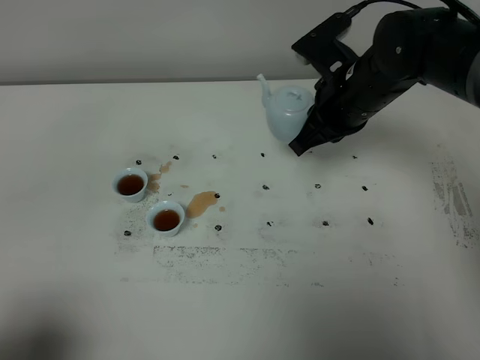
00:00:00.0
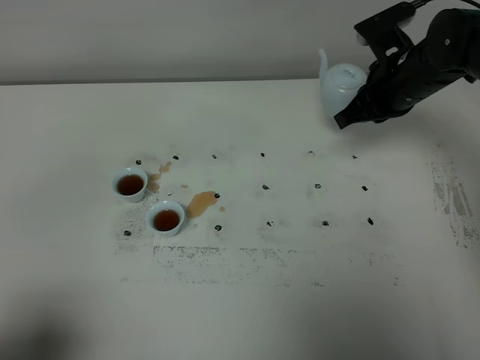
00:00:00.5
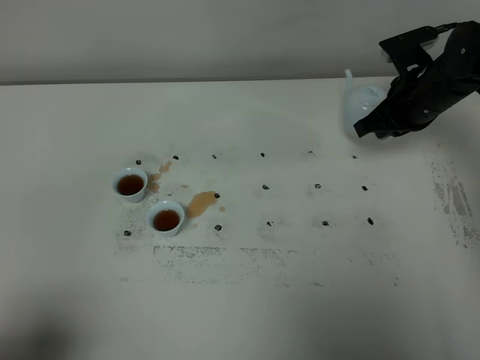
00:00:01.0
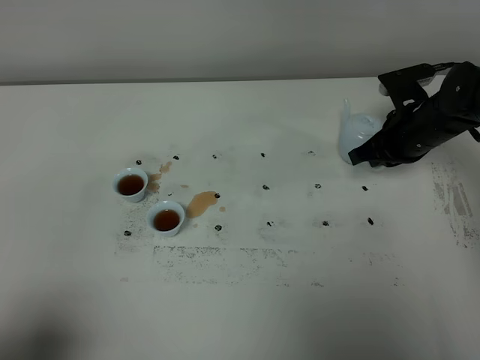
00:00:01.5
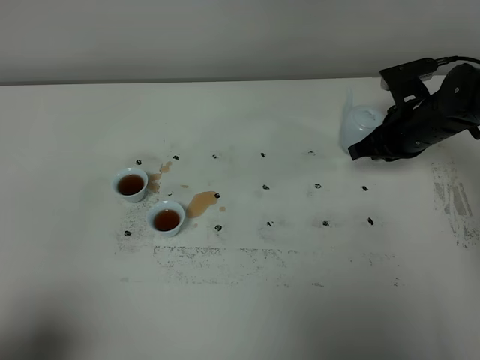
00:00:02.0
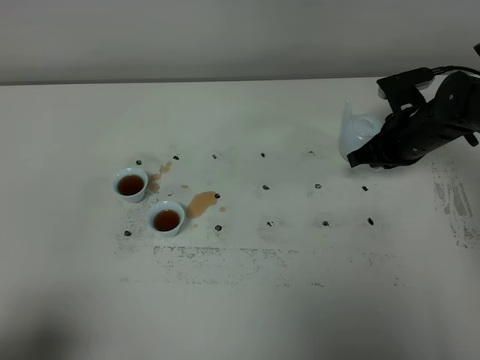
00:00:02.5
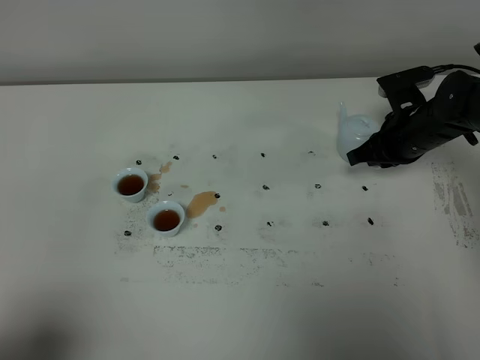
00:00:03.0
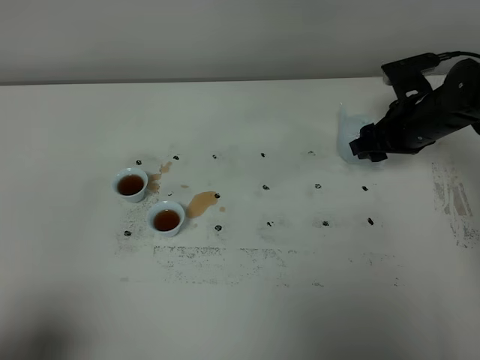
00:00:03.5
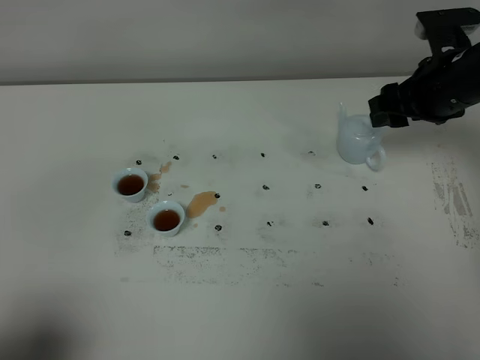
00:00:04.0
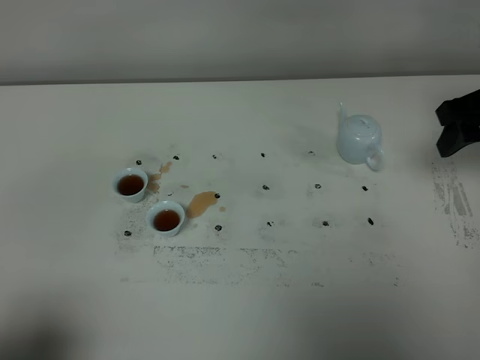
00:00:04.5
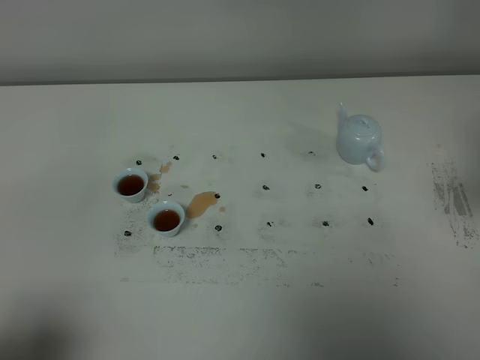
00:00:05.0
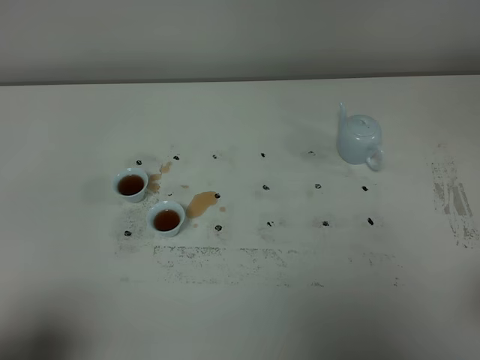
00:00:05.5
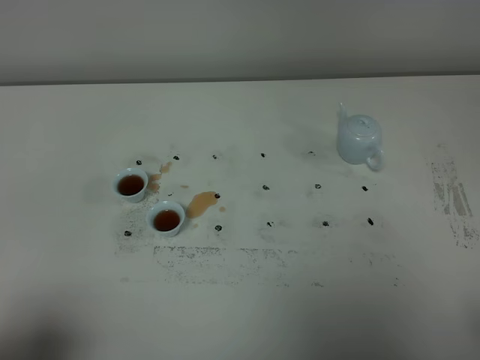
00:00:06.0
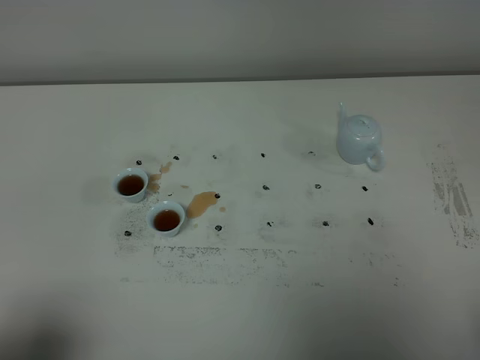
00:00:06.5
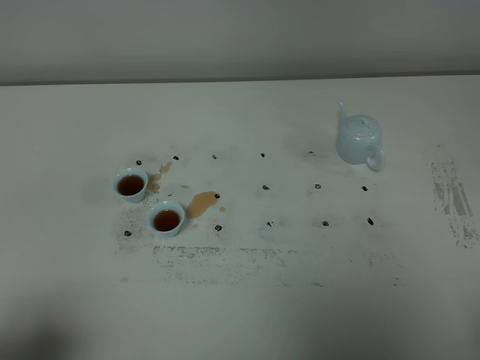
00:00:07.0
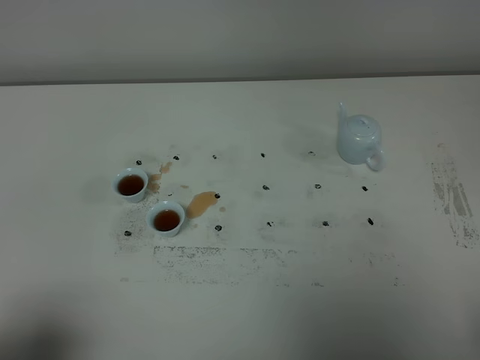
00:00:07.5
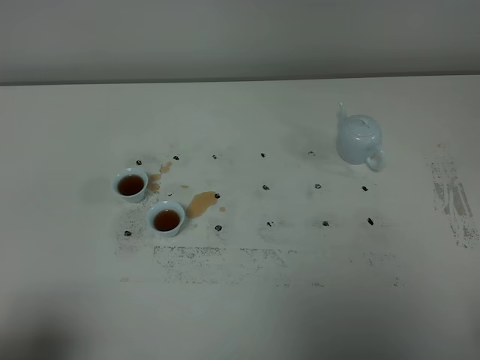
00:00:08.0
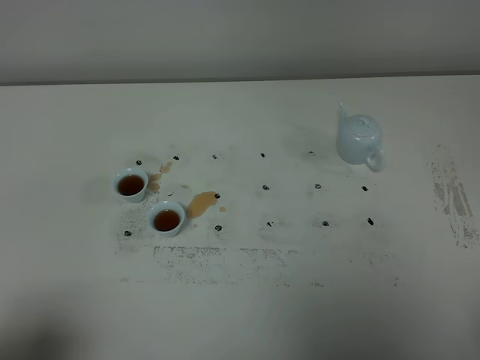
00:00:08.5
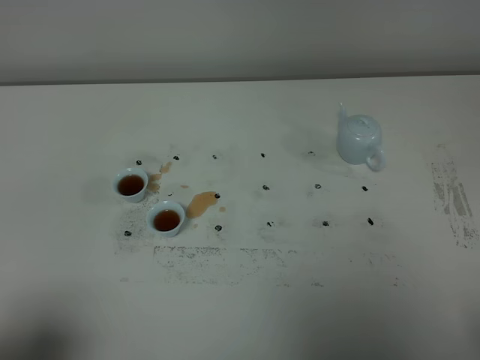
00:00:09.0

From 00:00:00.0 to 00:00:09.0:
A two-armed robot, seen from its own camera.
Task of the whole recording: grasp the blue porcelain teapot and pour the tea into the two blue porcelain teacups one by one, put the blue porcelain teapot back in its original place.
From 00:00:00.0 to 00:00:02.0: The right gripper travels to the right and downward by about 15 cm.
From 00:00:02.0 to 00:00:04.5: The right gripper is displaced upward and backward by approximately 15 cm, and opens.
From 00:00:04.5 to 00:00:07.0: The right gripper travels backward by approximately 35 cm.
From 00:00:07.0 to 00:00:09.0: The two grippers keep their place.

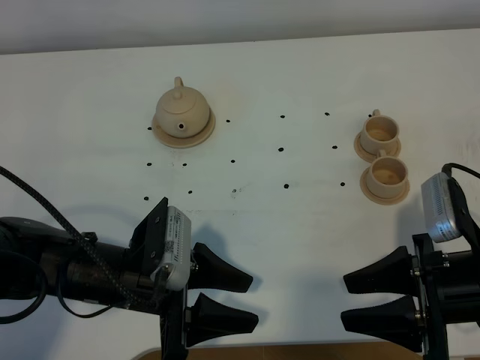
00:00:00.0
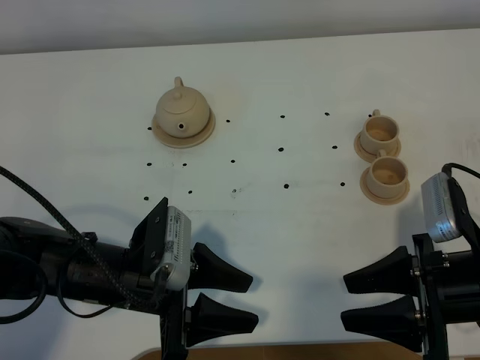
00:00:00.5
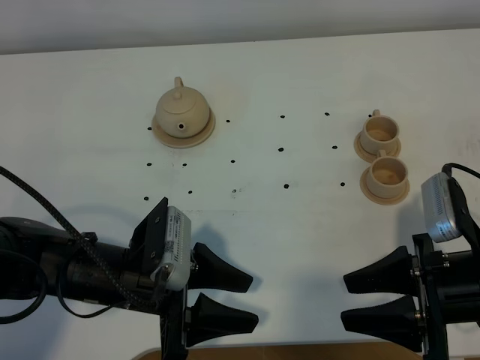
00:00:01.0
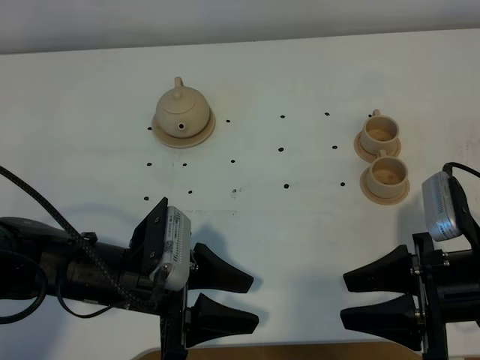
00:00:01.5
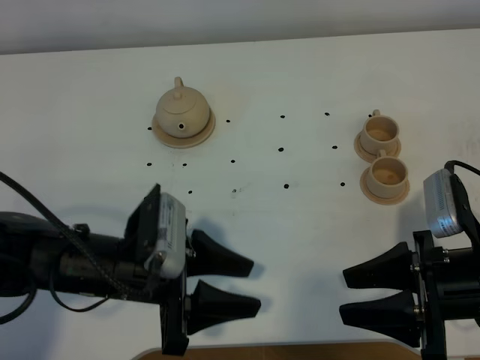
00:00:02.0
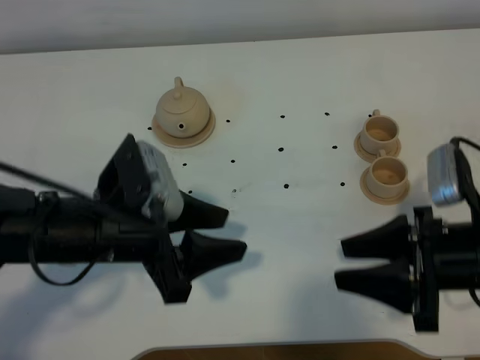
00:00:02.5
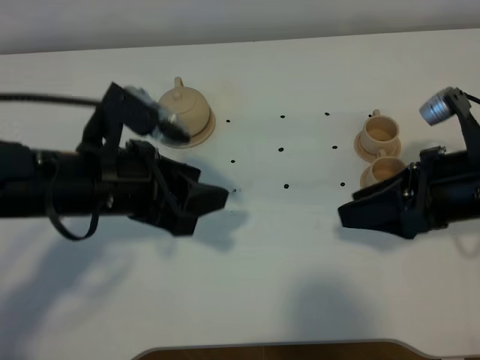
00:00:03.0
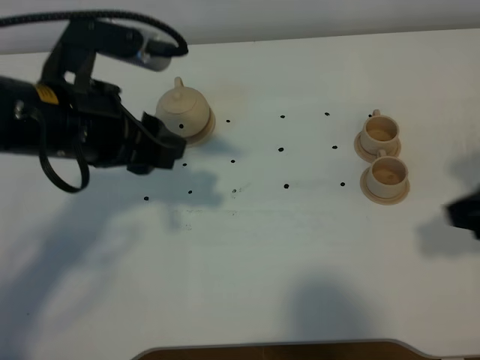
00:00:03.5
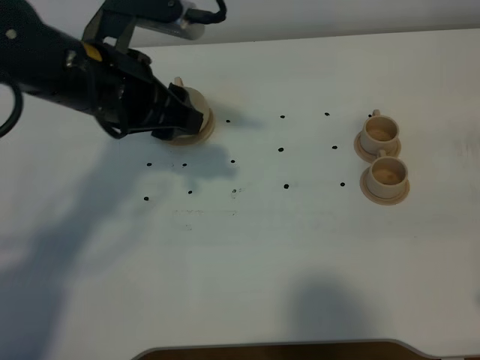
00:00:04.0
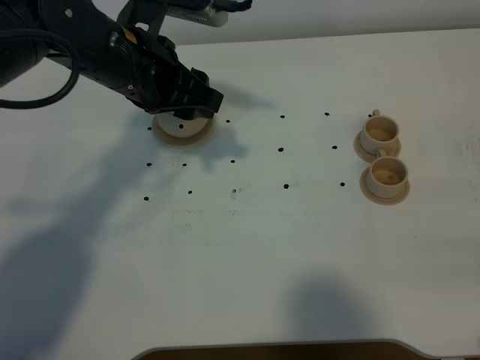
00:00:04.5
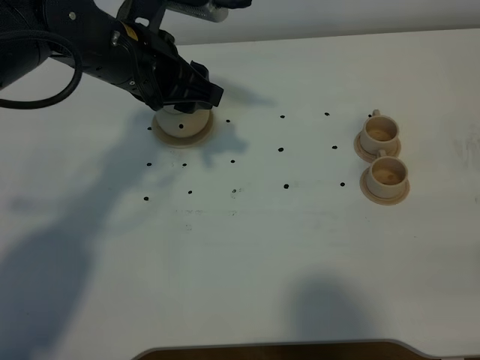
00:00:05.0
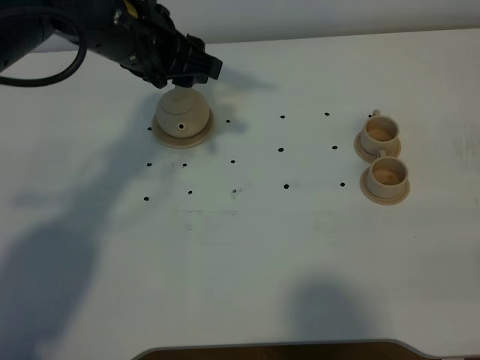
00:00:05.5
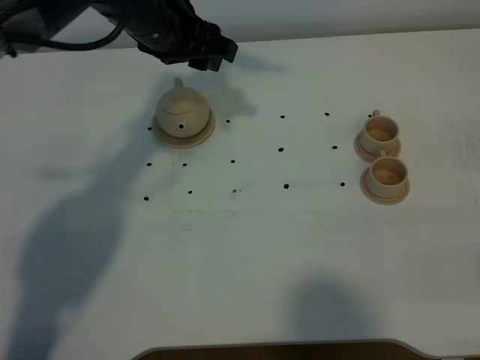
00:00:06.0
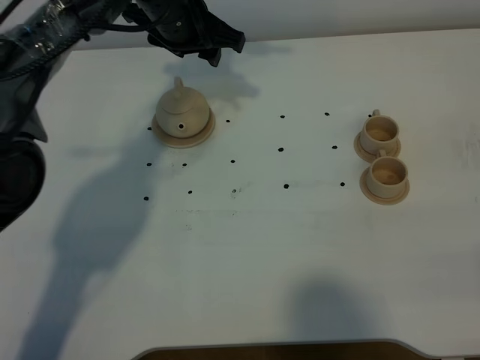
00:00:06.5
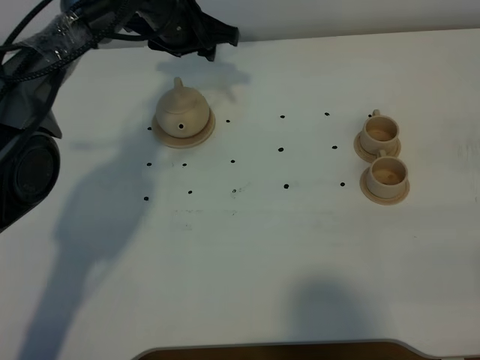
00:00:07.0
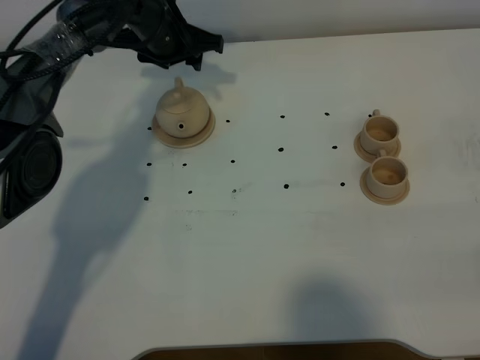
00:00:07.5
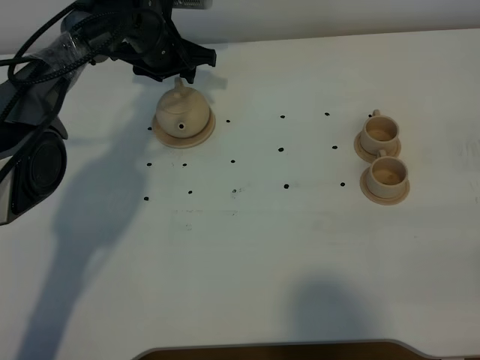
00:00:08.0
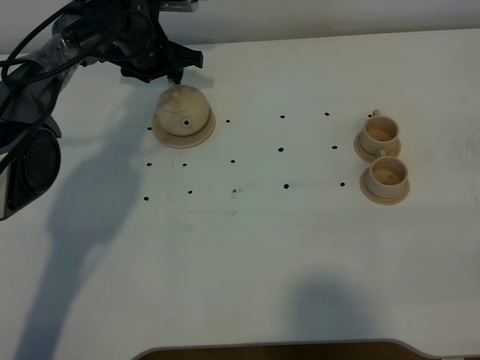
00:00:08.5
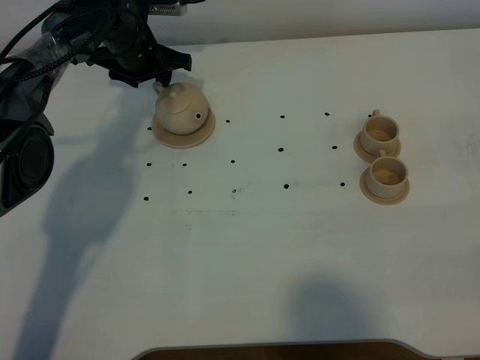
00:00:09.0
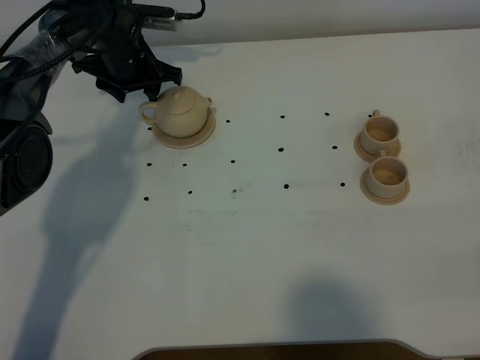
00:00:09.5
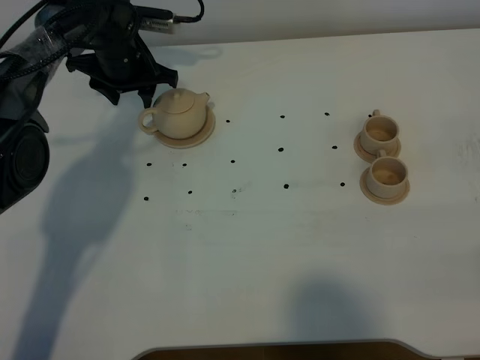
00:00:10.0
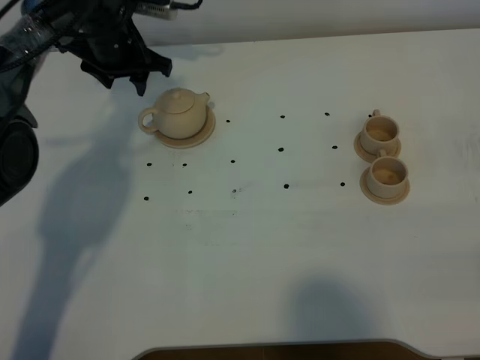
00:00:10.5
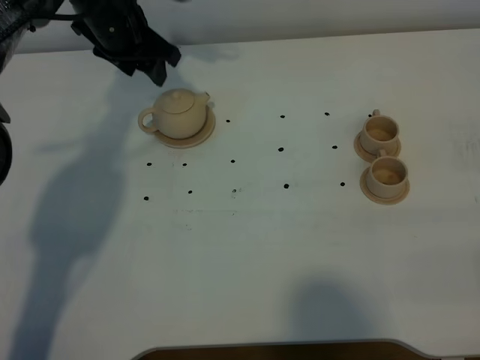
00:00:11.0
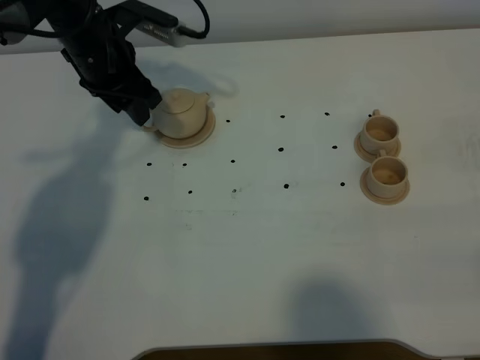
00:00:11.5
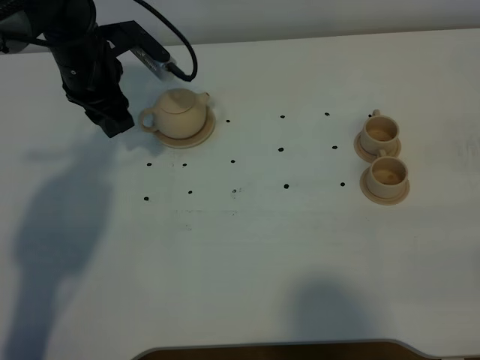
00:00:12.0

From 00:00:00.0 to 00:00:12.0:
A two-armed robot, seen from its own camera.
Task of the whole recording: grasp the brown teapot and pour the tea into the two brown teacups one by one, put the brown teapot back in its original place.
From 00:00:00.0 to 00:00:02.0: The grippers stay close to where they were, moving slightly.
From 00:00:02.0 to 00:00:04.0: The left gripper heads forward and upward, covering about 20 cm. The right gripper shifts about 20 cm upward, to the right and backward.
From 00:00:04.0 to 00:00:06.0: The left gripper moves forward, some 10 cm, while the right gripper moves backward and downward, roughly 10 cm.
From 00:00:06.0 to 00:00:08.0: The left gripper is displaced downward and forward by some 15 cm.
From 00:00:08.0 to 00:00:10.0: The left gripper ends up about 5 cm from where it was.
From 00:00:10.0 to 00:00:12.0: The left gripper heads backward, covering some 10 cm.

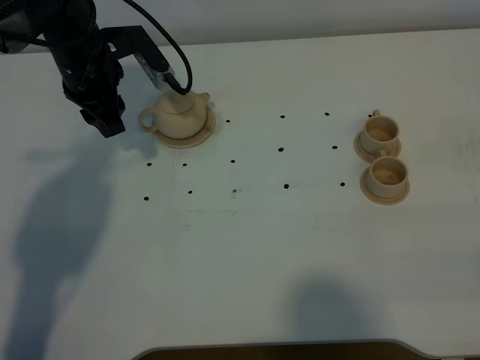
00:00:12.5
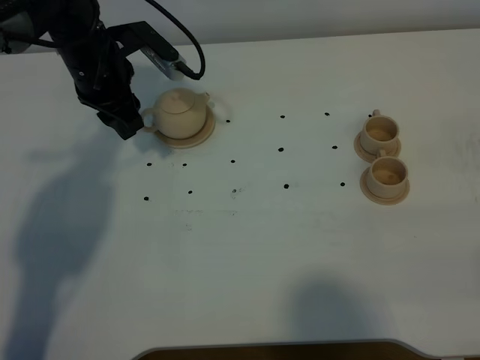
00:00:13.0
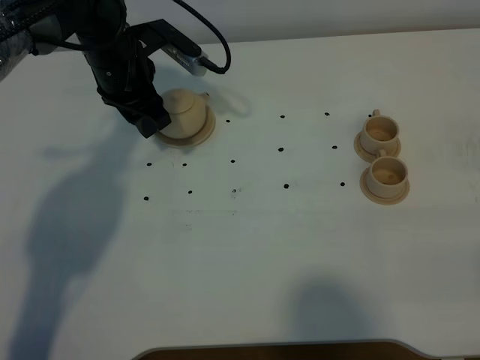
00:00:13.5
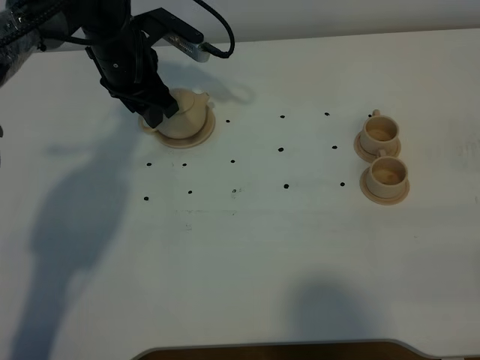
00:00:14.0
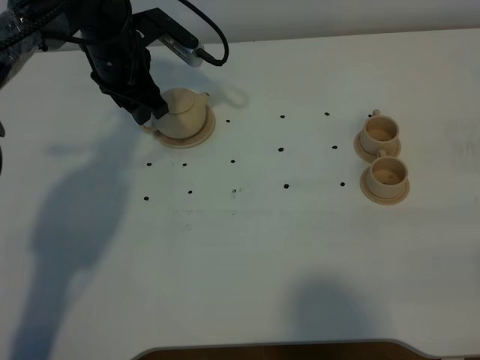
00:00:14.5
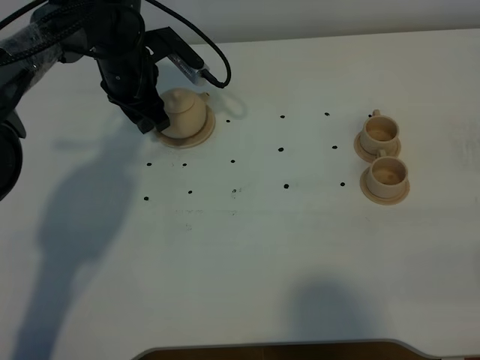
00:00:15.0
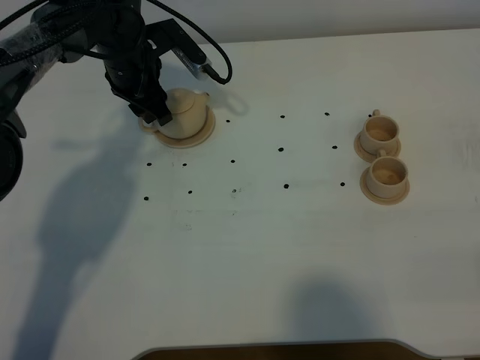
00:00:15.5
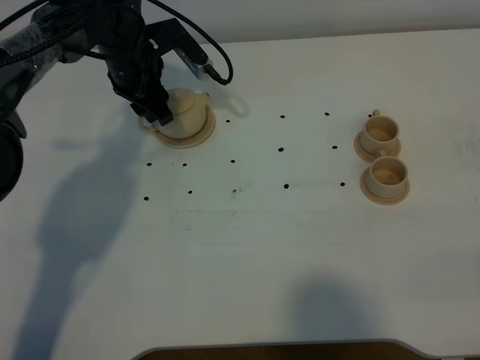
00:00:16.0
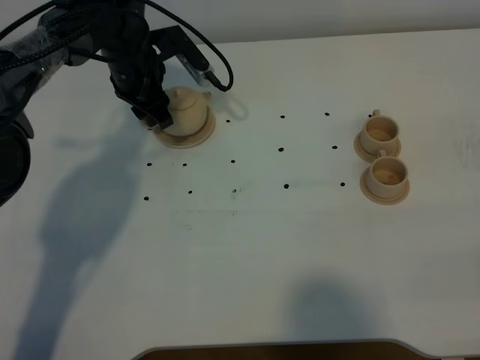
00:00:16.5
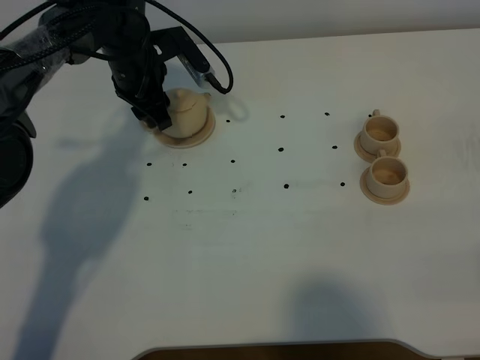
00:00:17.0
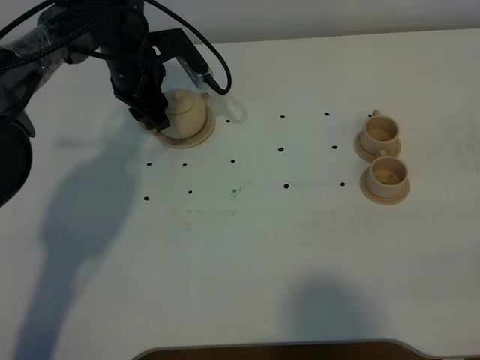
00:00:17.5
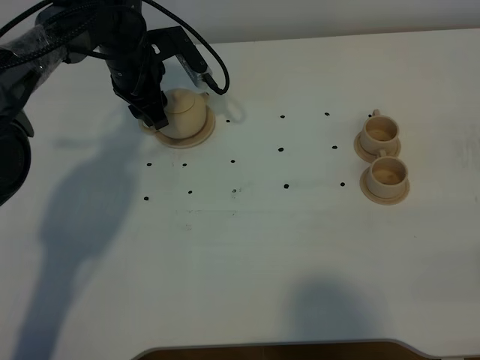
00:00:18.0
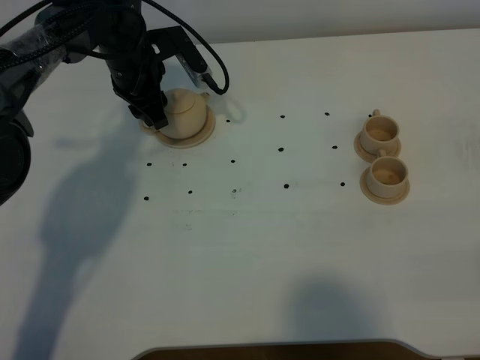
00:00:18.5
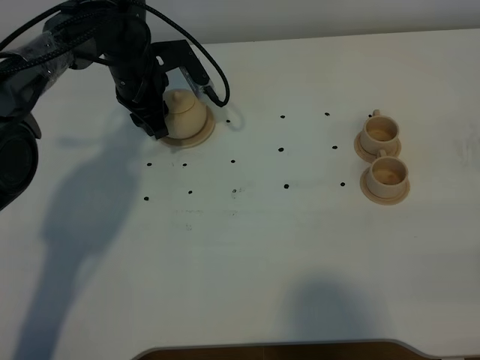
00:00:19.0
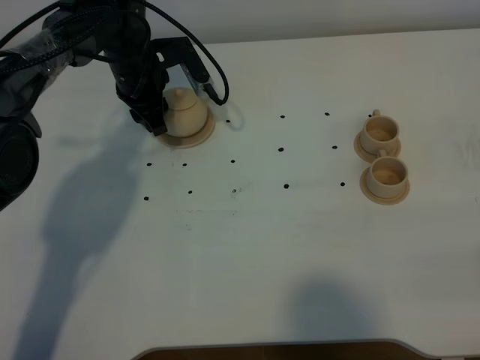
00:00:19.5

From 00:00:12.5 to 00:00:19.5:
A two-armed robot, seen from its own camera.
Task of the whole recording: grasp the brown teapot and pour the tea into the two brown teacups one by one, put the brown teapot back in its original place.
From 00:00:12.5 to 00:00:14.5: There are only small adjustments of the grippers.
From 00:00:14.5 to 00:00:19.5: The grippers stay close to where they were, moving slightly.
